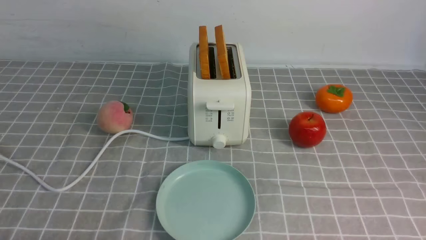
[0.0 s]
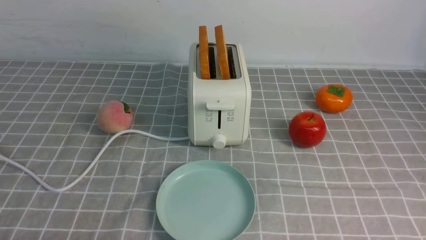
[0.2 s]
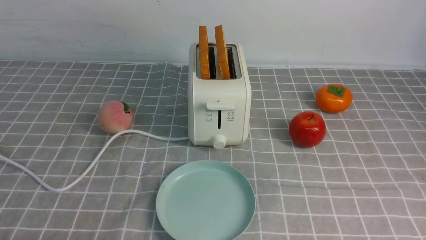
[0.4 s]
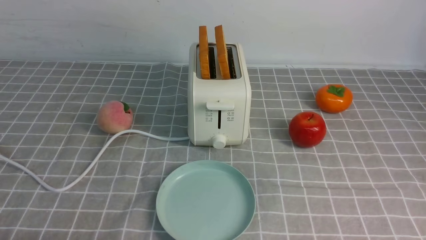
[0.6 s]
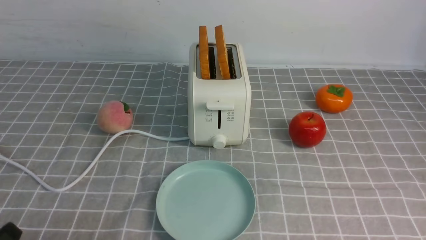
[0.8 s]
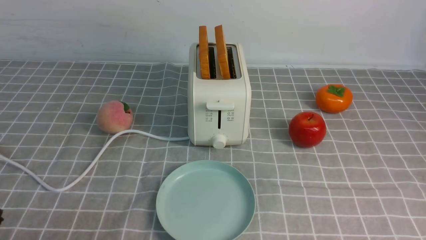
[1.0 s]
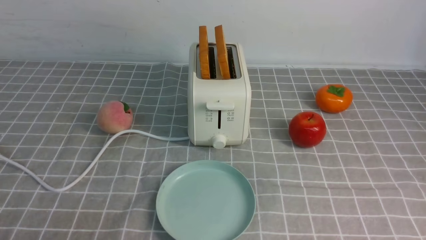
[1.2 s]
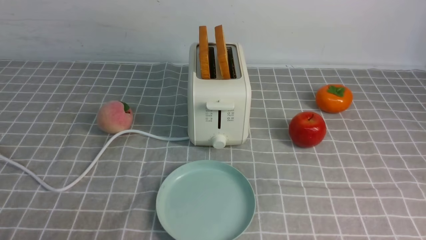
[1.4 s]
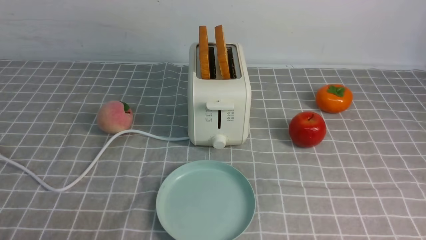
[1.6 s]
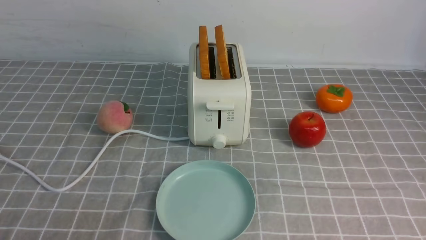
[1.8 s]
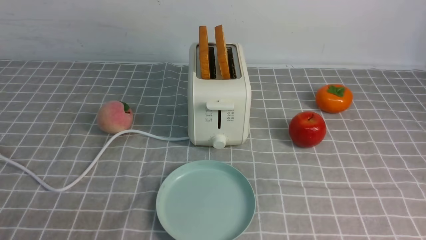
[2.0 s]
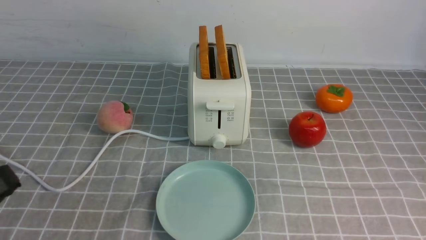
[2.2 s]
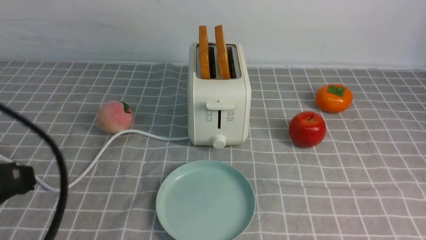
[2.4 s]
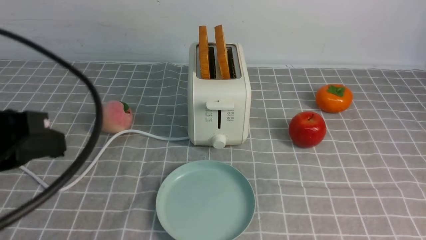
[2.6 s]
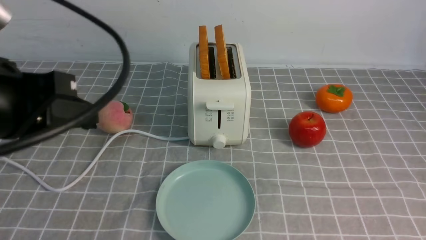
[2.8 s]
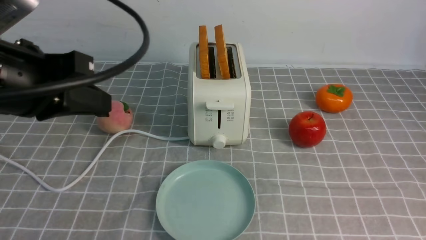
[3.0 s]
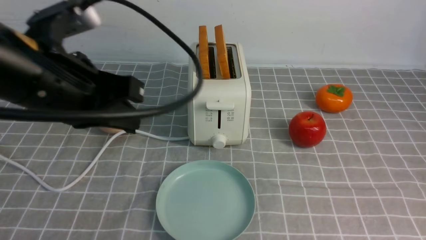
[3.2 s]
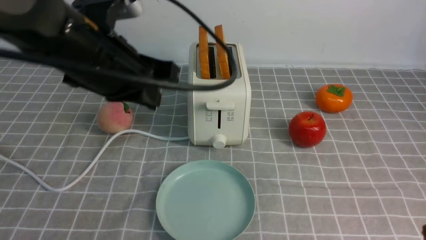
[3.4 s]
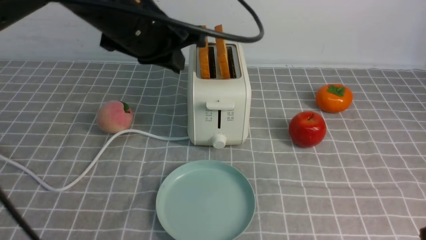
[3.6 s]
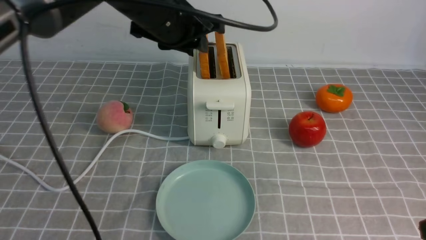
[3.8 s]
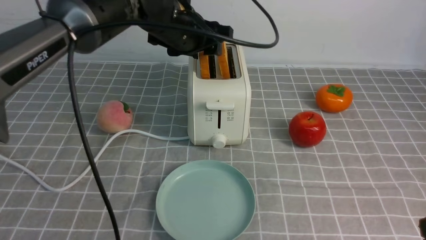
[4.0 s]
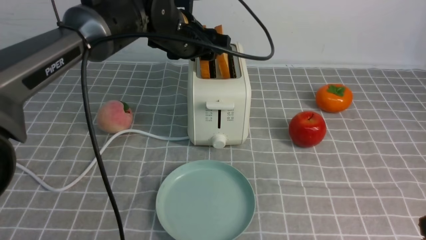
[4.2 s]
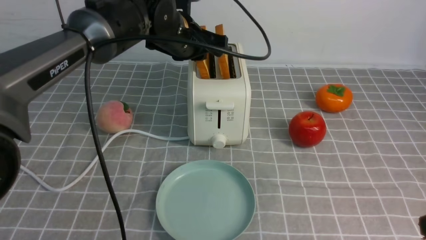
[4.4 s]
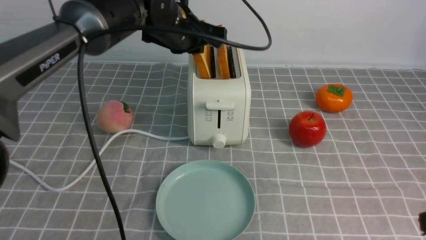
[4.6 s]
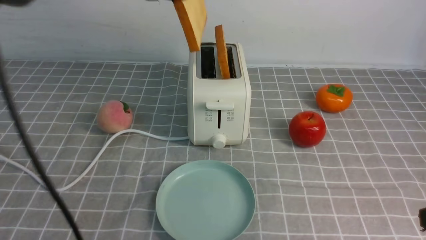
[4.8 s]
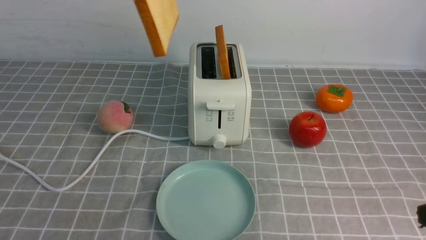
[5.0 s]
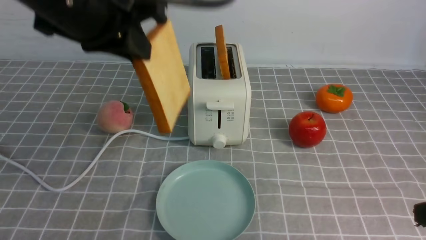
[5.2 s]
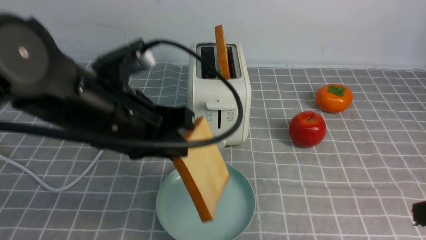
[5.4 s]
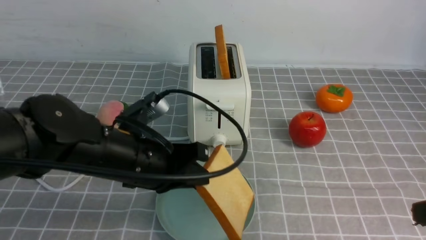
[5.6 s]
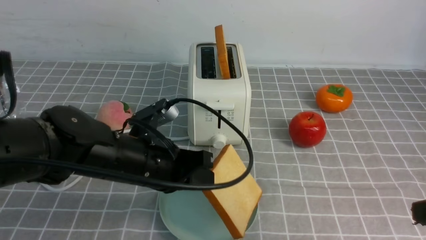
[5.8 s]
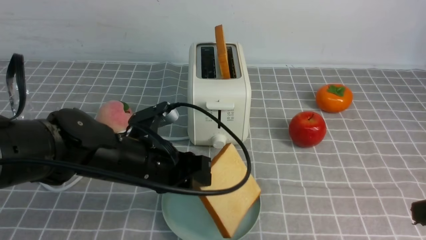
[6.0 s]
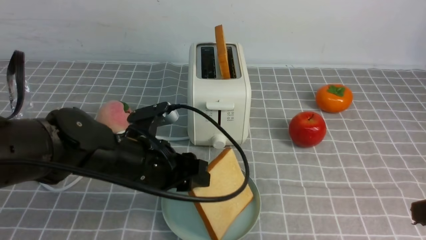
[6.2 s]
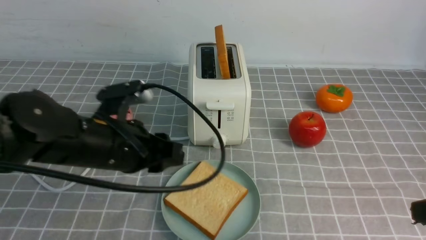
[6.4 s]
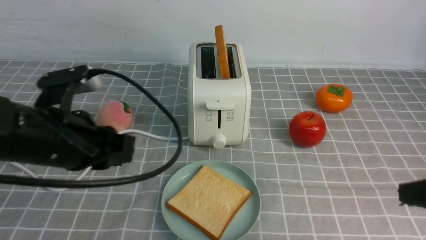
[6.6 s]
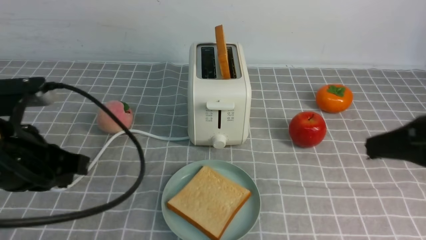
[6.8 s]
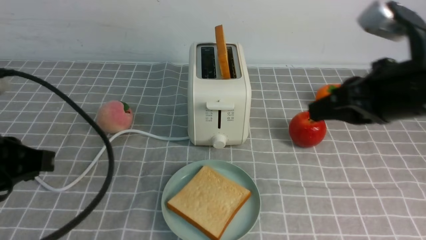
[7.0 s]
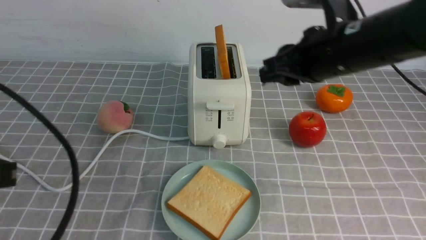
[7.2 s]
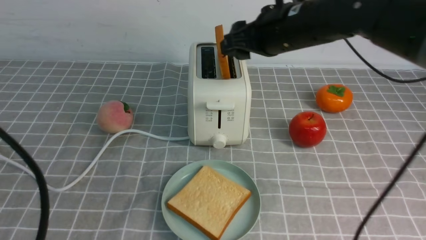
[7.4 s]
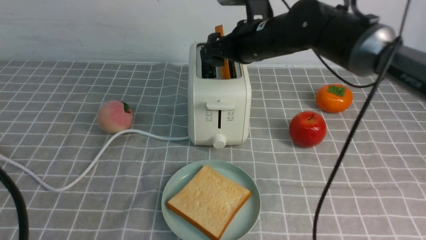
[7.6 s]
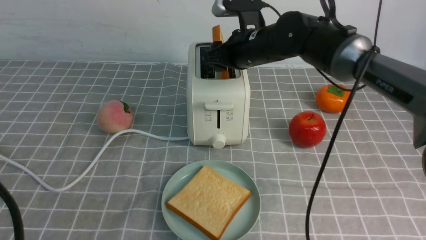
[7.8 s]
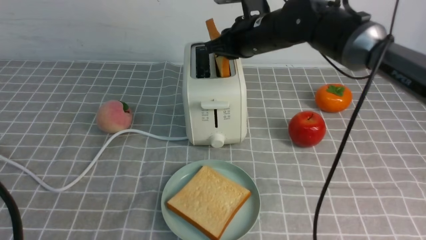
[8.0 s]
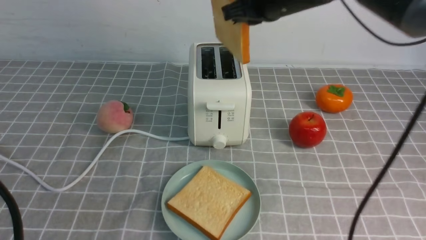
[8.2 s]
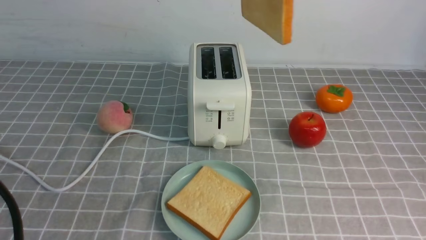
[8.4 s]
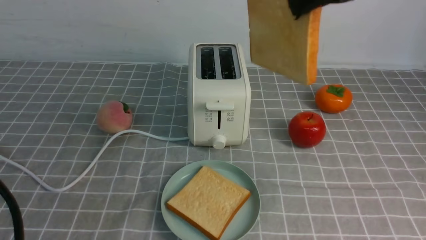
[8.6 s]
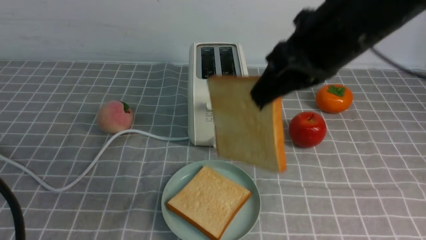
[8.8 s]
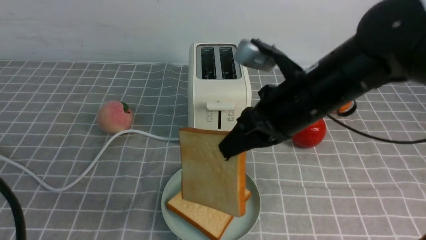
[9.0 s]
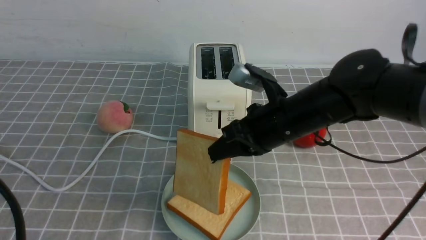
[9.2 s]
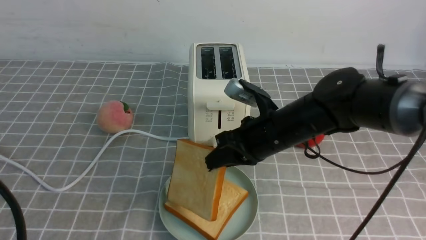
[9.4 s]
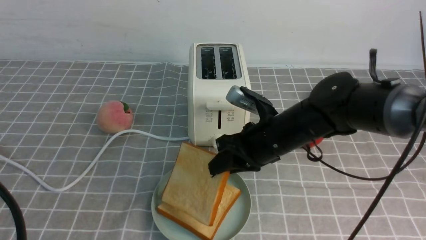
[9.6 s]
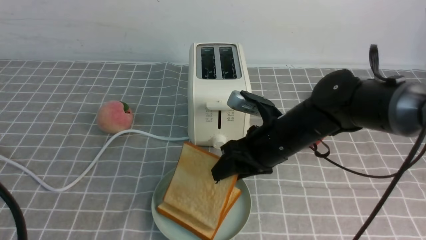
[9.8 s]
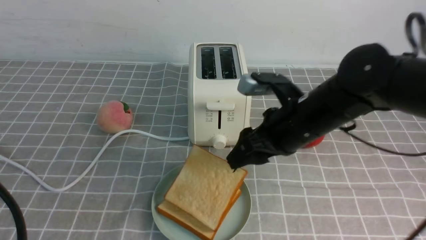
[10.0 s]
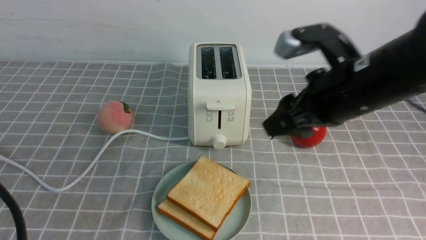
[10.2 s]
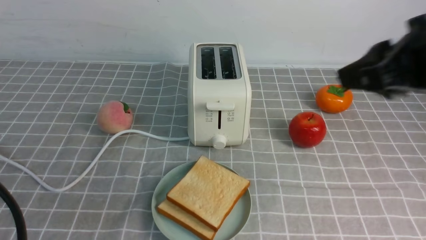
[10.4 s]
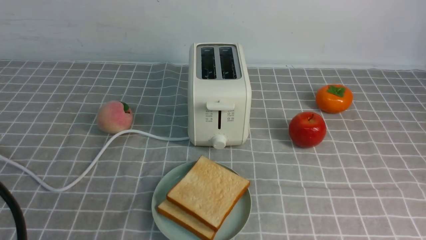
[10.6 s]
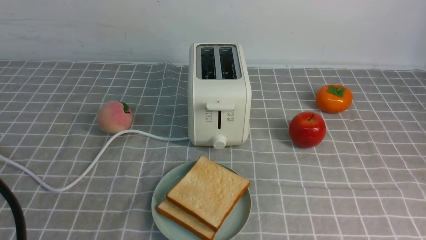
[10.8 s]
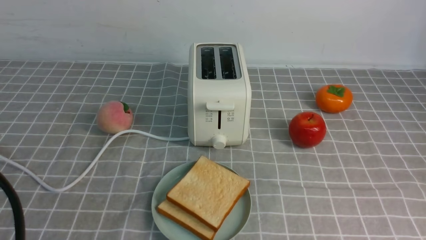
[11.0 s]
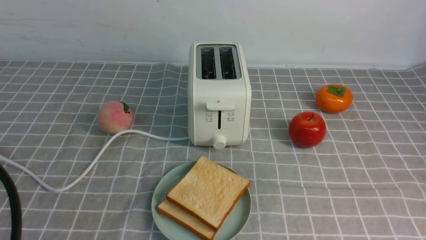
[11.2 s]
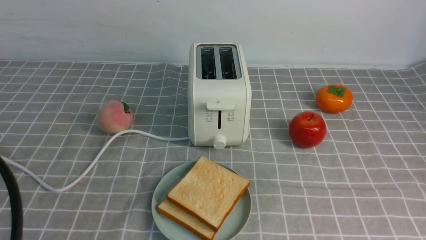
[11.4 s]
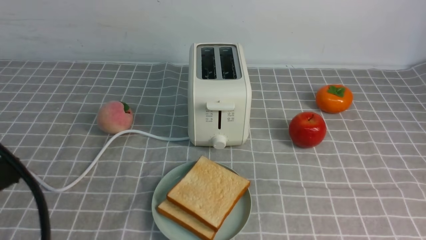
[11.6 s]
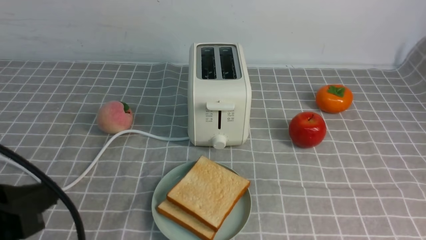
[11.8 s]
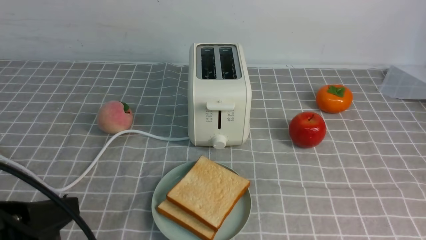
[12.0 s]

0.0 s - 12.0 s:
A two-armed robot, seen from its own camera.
Task of the whole recording: take toasted bread from bread machine on grey coffee table place on plate.
Step, 0.0 s - 4.8 s: use the left arm to take out a slice of bread.
Step, 5.0 s - 6.4 s: use the left arm to put a slice of bread into the empty plate.
Step, 6.6 s - 8.2 s: use the right arm to take out a slice of bread.
Step, 8.4 s - 10.0 s: use the right arm to put a slice of bread into the plate.
1.6 s - 3.0 s: The left gripper shifts approximately 25 cm upward, forward and to the right.
3.0 s - 4.4 s: The left gripper heads forward and to the right, covering roughly 25 cm, and opens.
4.4 s - 6.0 s: The left gripper heads backward and downward, covering some 20 cm.
6.0 s - 7.6 s: The right gripper travels forward and to the left by about 35 cm, and opens. The left gripper shifts some 25 cm backward, to the left and upward, and closes.
7.6 s - 9.0 s: The right gripper shifts approximately 15 cm backward, and closes up.
9.0 s - 10.4 s: The right gripper shifts approximately 20 cm backward, to the right and upward, and opens, then closes again.
10.4 s - 12.0 s: The left gripper heads downward, covering some 5 cm. The right gripper goes some 20 cm backward, downward and to the right, and closes.

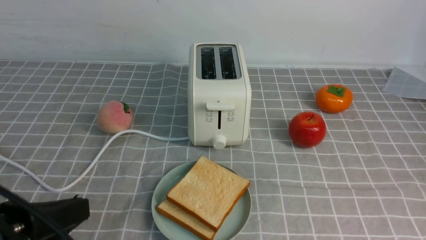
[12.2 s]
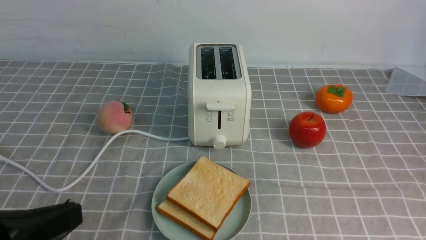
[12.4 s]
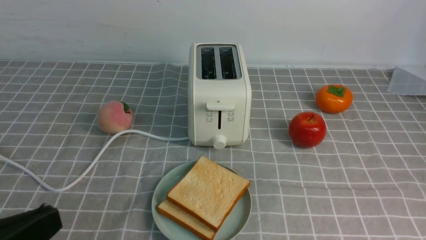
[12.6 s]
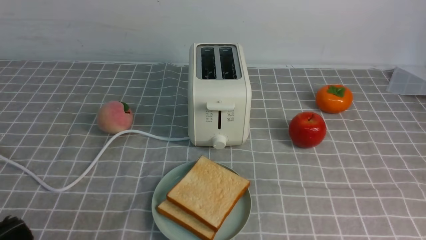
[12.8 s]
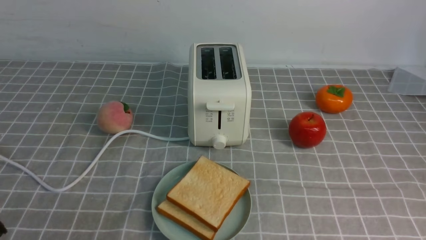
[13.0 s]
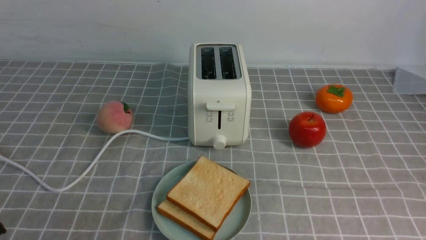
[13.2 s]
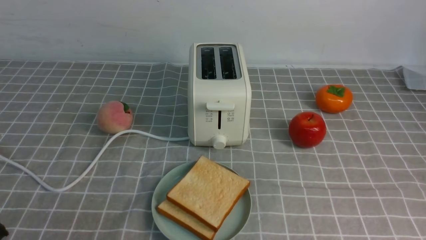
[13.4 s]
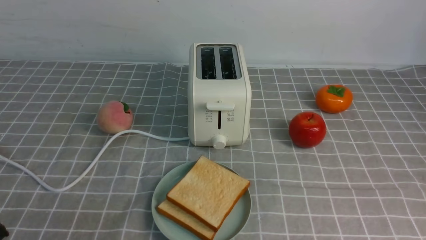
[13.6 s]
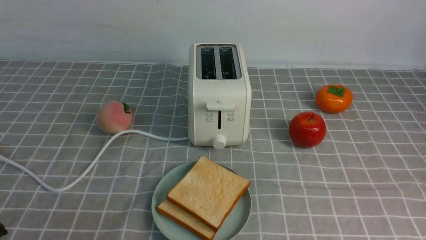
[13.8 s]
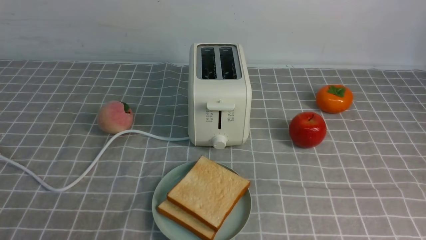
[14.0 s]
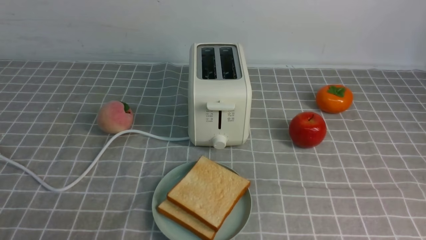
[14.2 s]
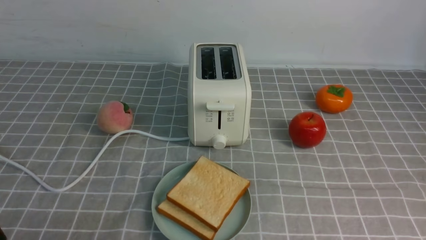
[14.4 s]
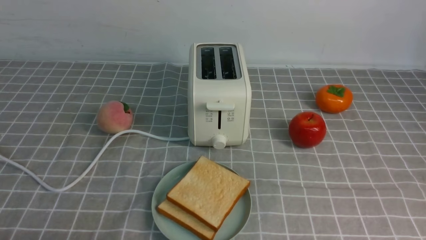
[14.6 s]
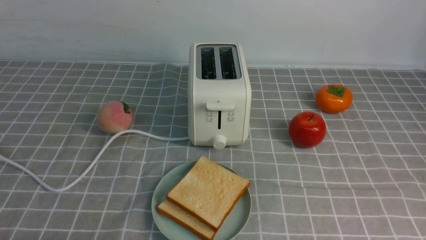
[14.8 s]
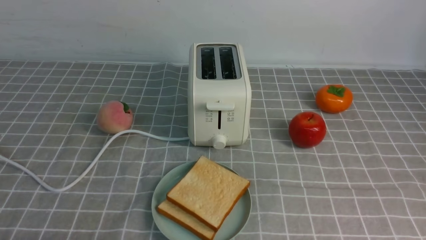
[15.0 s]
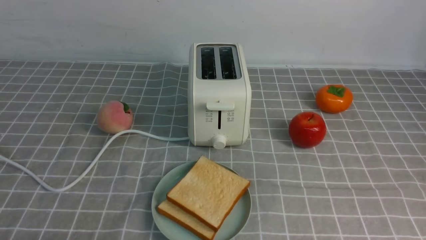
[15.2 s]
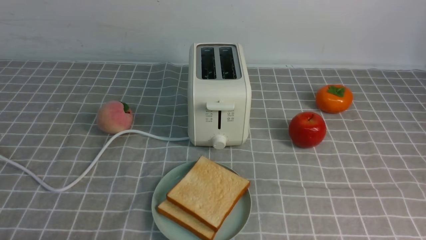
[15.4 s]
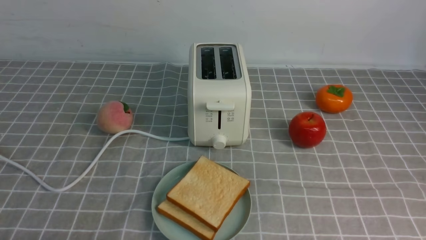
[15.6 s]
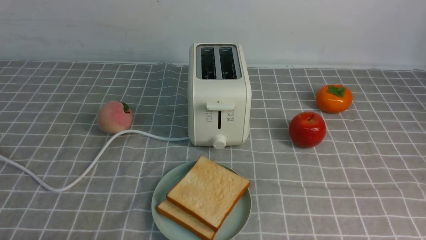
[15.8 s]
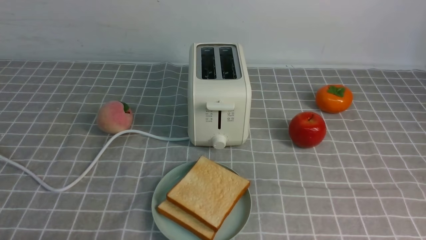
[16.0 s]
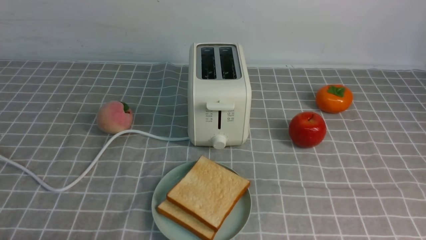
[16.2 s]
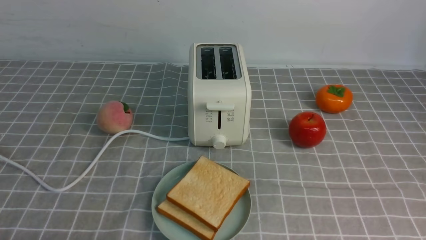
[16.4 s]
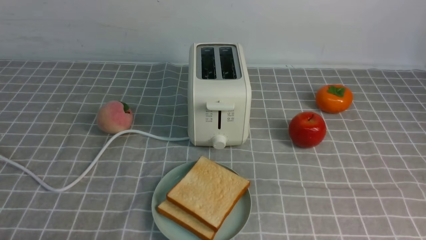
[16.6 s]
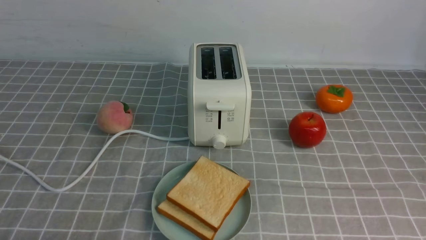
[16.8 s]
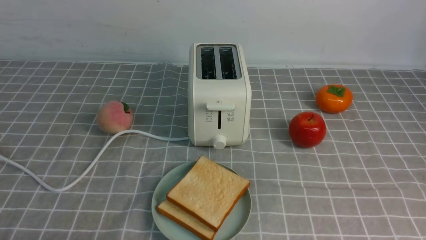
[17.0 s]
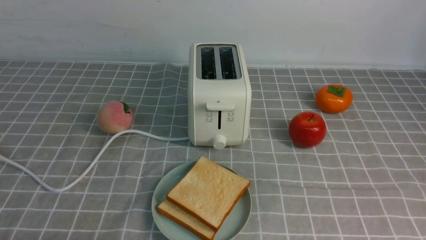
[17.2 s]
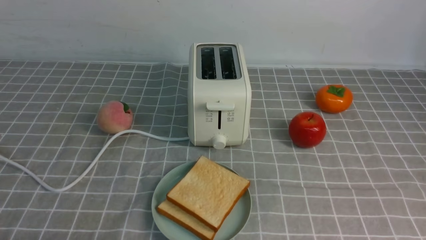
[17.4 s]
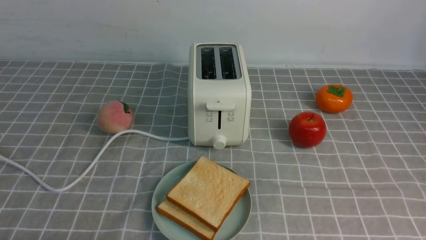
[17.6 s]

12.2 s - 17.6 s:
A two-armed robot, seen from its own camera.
Task of the whole recording: take toasted bread from bread machine on grey coffee table place on plate.
12.2 s - 13.6 s: The left gripper moves backward, approximately 10 cm.
